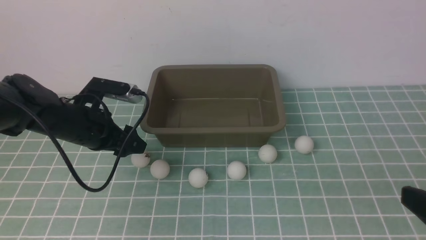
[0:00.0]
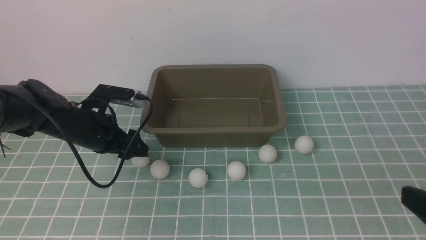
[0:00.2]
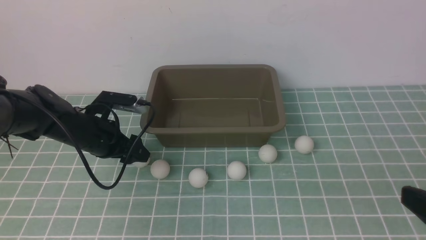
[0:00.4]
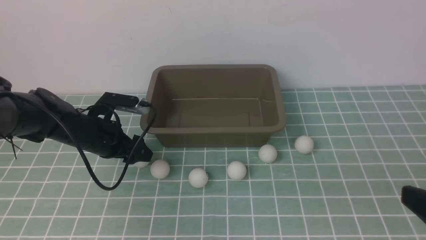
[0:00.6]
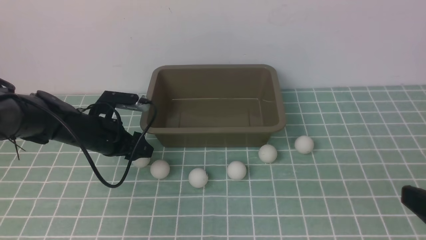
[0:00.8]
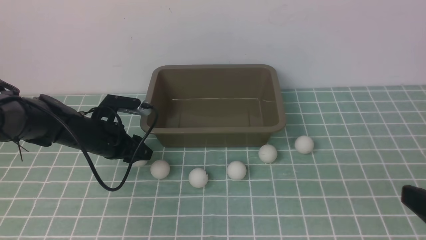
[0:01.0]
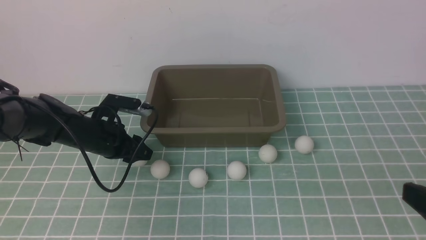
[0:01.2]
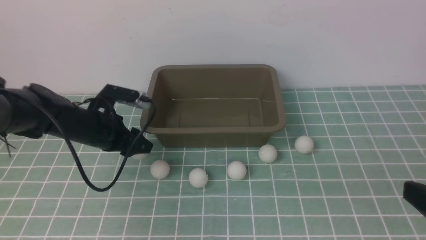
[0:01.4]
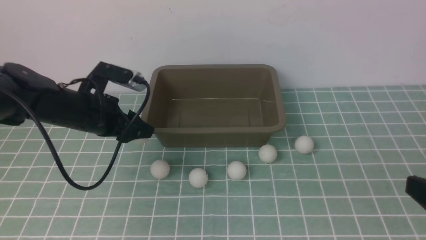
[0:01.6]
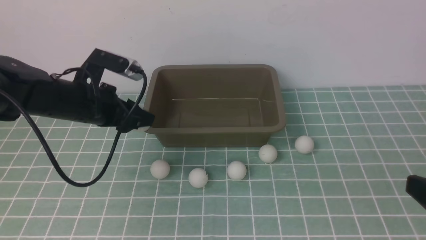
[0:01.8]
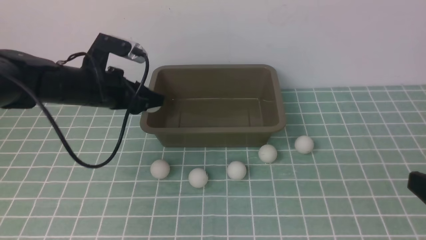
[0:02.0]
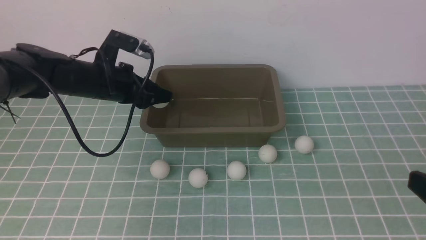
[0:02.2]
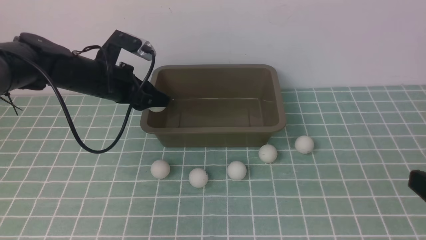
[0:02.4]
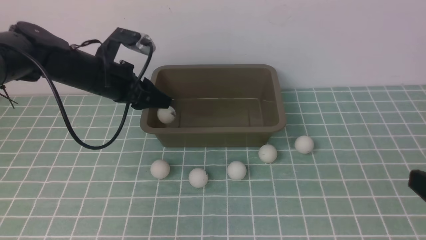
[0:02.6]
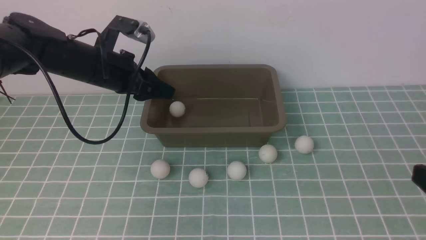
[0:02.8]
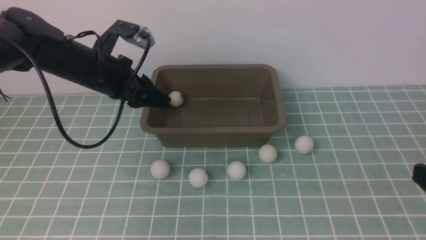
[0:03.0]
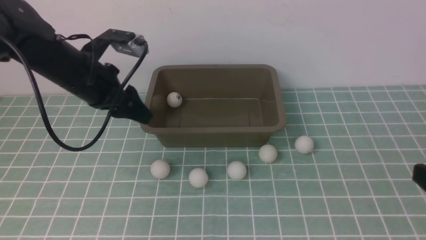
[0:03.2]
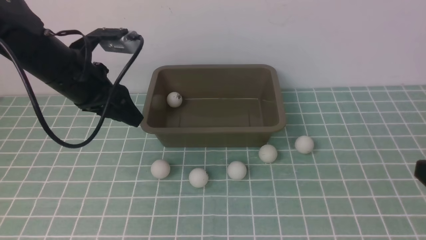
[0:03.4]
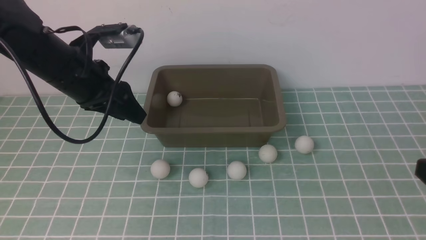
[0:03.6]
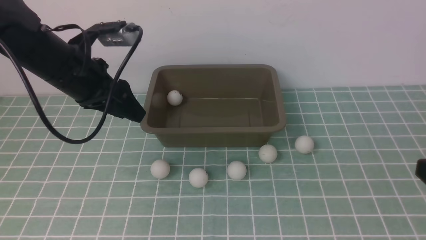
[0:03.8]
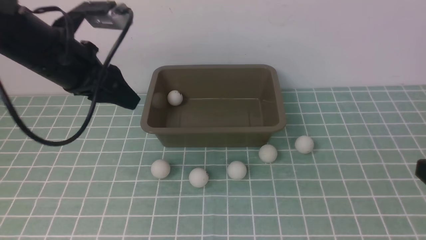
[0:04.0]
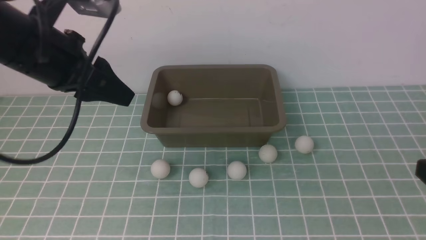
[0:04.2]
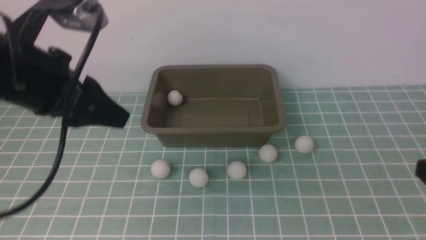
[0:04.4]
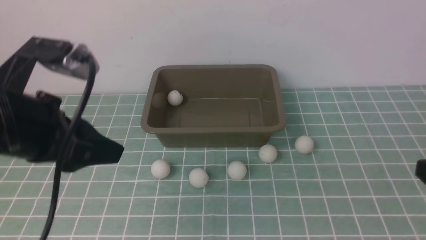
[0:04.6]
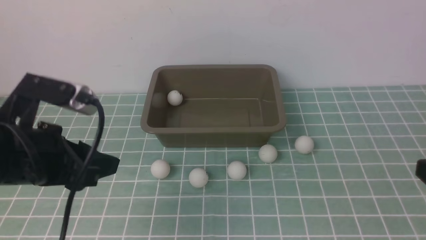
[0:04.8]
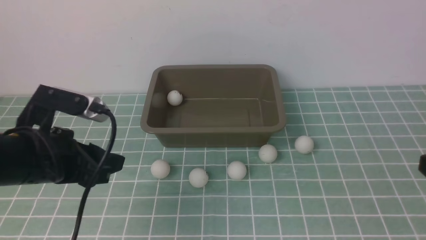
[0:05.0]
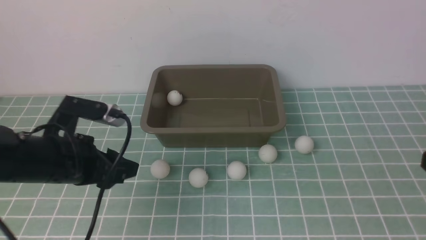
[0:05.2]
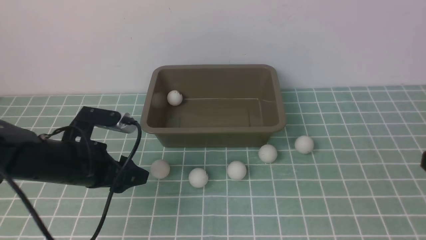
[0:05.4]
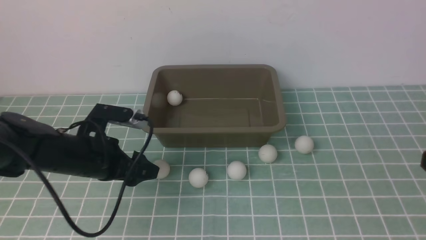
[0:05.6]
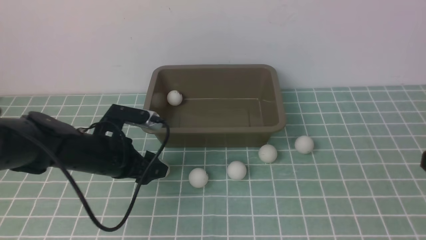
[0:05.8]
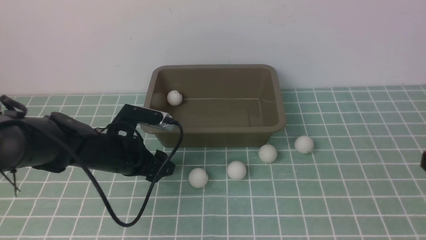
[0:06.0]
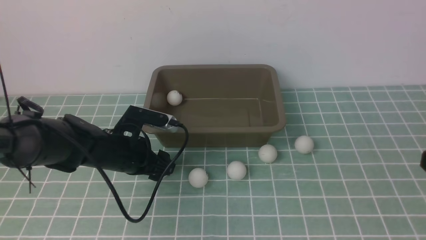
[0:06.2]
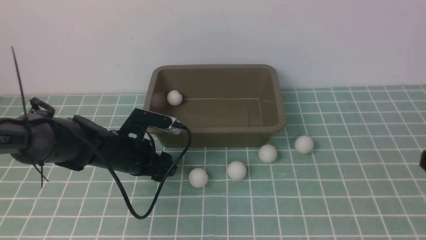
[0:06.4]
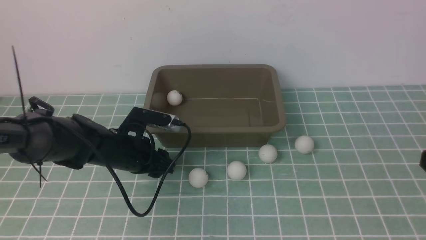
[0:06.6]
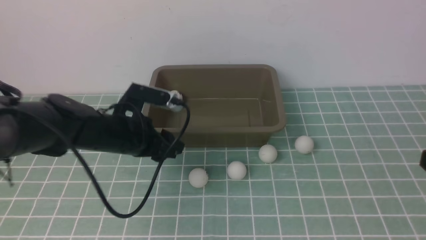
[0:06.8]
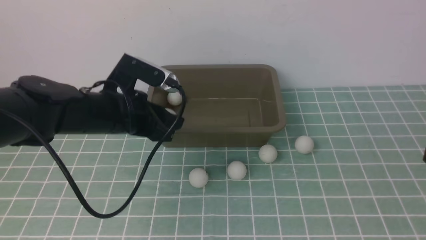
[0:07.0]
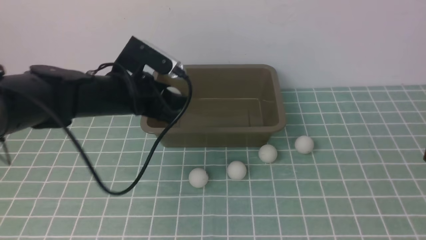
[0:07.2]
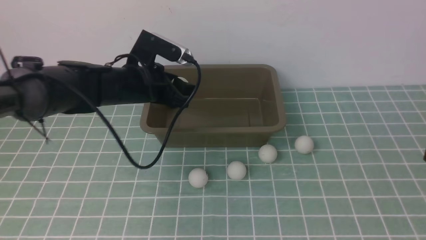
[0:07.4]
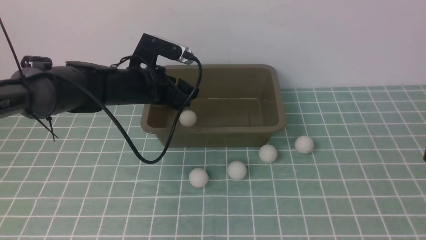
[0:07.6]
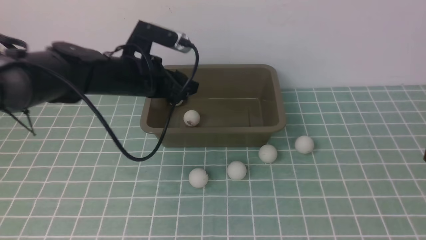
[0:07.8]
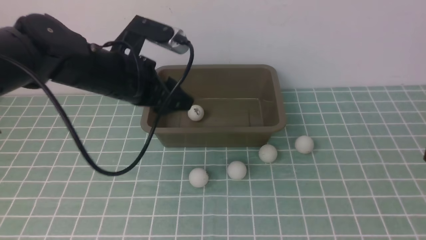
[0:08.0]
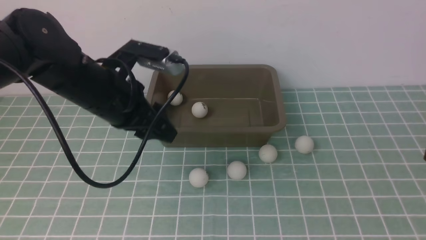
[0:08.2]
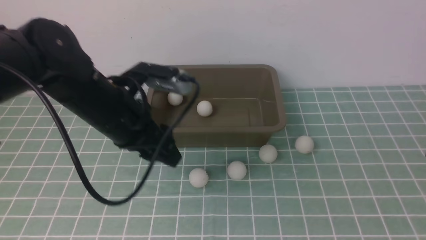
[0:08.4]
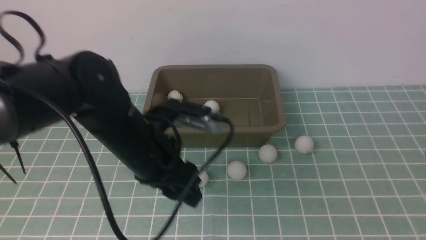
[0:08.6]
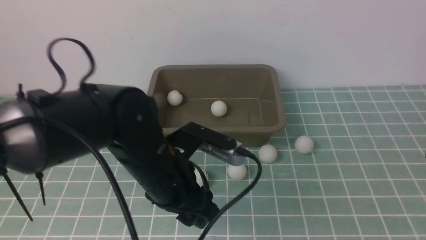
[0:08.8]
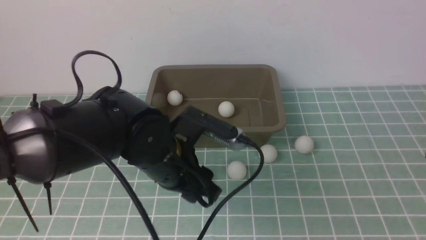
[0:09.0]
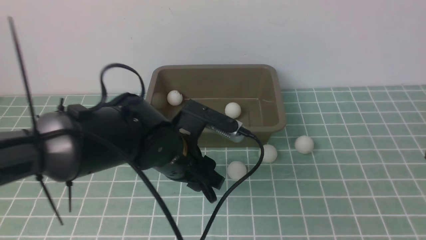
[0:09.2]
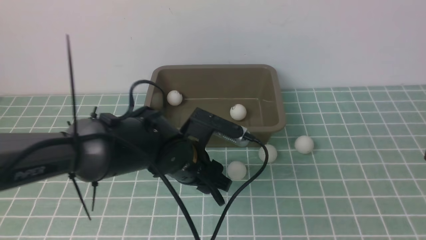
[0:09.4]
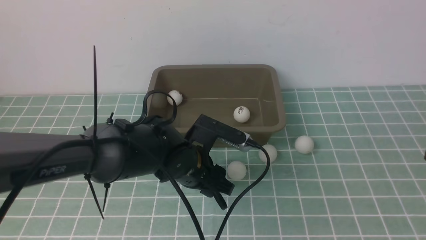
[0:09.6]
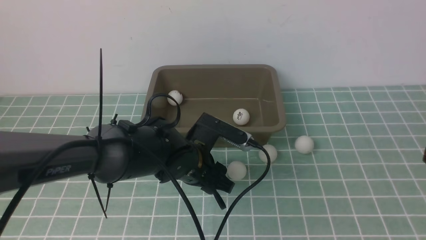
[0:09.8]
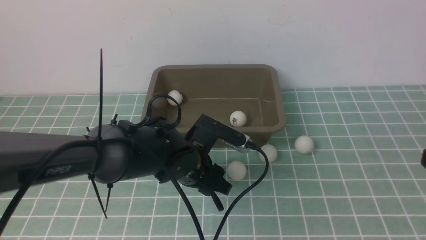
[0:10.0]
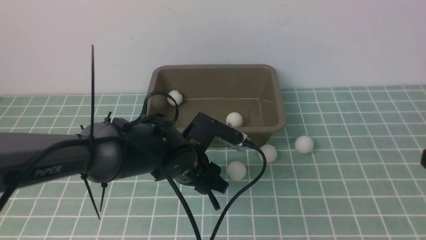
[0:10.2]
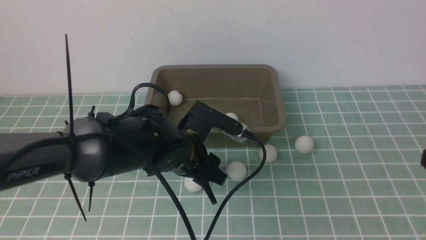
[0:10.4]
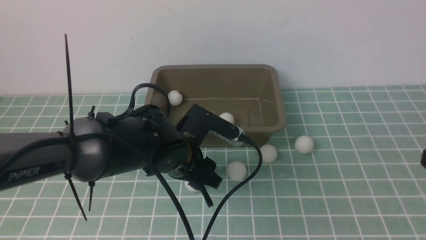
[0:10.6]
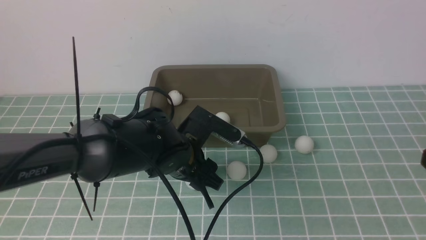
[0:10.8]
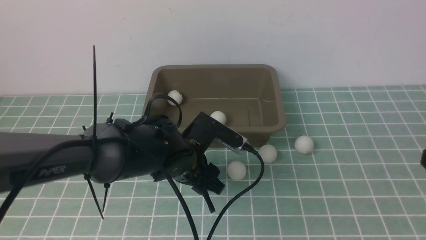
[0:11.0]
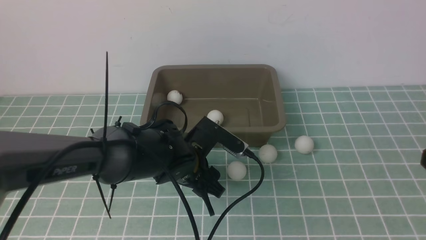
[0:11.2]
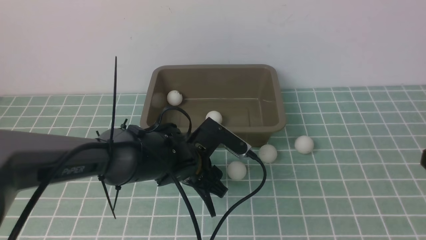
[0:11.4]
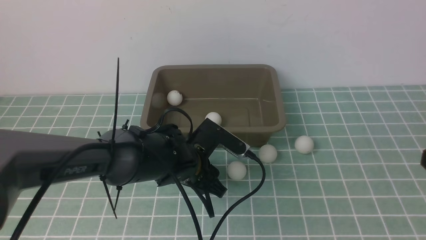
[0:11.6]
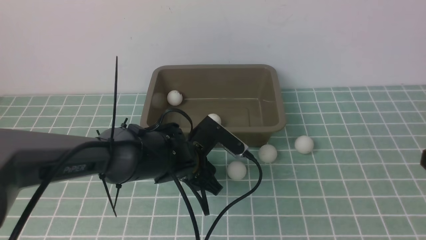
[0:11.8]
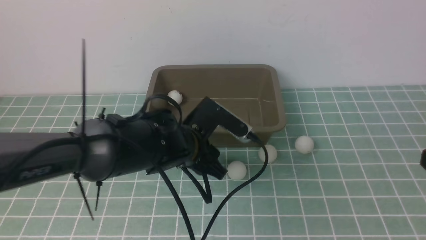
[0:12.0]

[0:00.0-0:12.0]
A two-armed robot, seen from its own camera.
Step, 0:01.6 to 0:02.6: use the left arm to put the table tennis ball into the box.
Step, 0:02.8 to 0:06.8: use the left arm to clamp the table tennis ball closest to it.
Step, 0:07.0 to 0:07.8: use the left arm to put the table tennis ball into the box.
0:00.0 to 0:01.6: The left gripper goes roughly 5 cm upward, and closes its fingers.
0:01.6 to 0:03.0: The left gripper moves about 5 cm.
0:03.0 to 0:04.4: The left gripper travels backward and upward by approximately 15 cm.
0:04.4 to 0:06.0: The left gripper shifts some 20 cm downward, and opens.
0:06.0 to 0:07.6: The left gripper shifts some 10 cm upward and forward, and closes and opens again.
0:07.6 to 0:09.0: The left gripper goes some 15 cm backward and to the right.
0:09.0 to 0:10.4: The left gripper ends up about 5 cm from where it was.
0:10.4 to 0:12.0: The left gripper closes up.

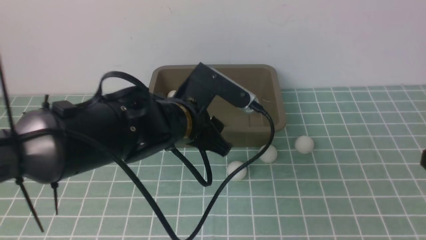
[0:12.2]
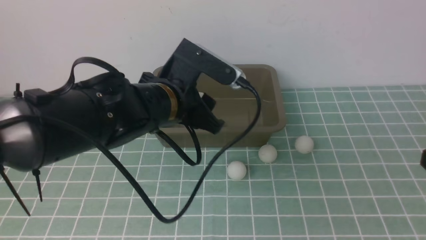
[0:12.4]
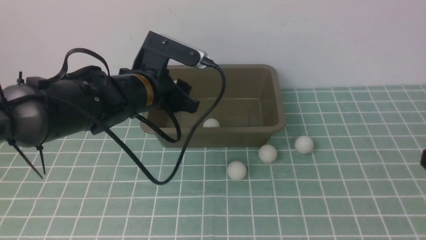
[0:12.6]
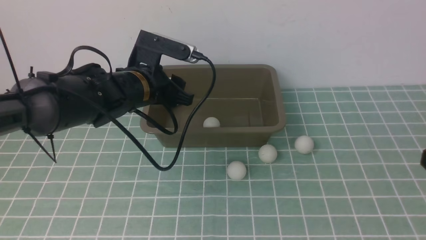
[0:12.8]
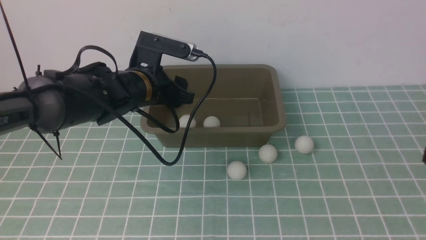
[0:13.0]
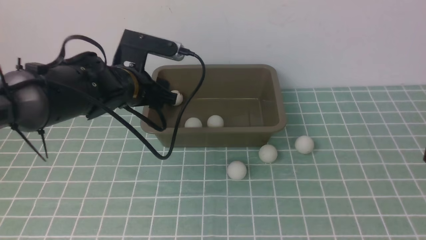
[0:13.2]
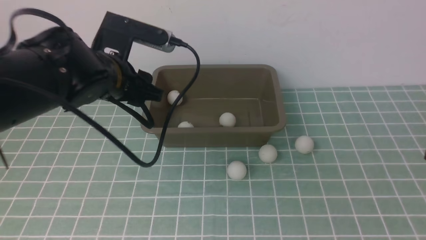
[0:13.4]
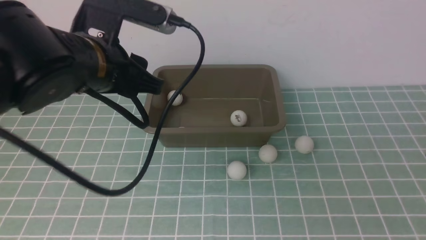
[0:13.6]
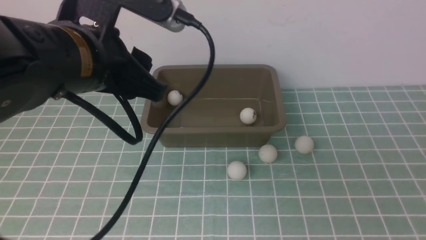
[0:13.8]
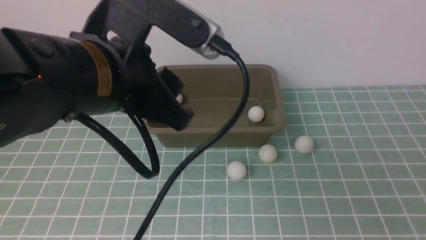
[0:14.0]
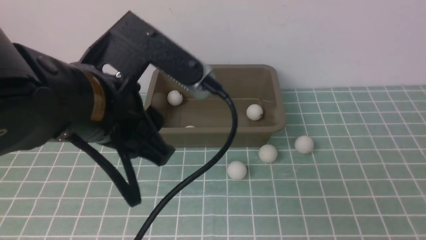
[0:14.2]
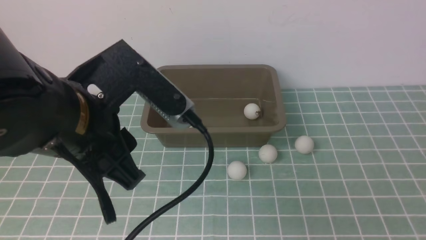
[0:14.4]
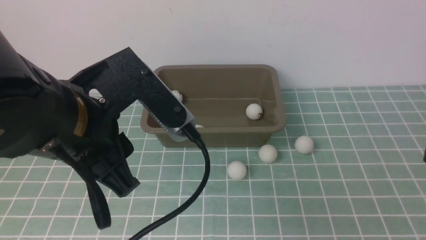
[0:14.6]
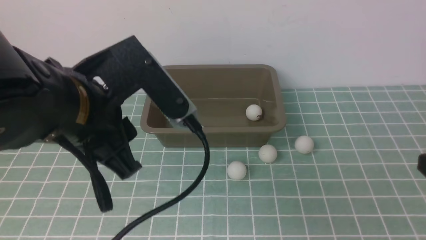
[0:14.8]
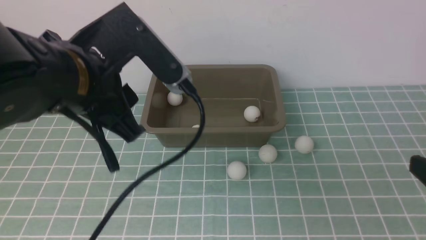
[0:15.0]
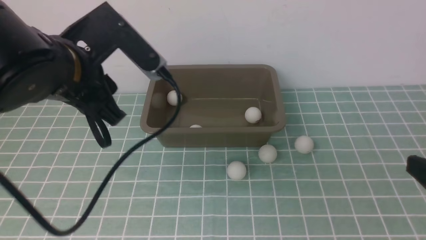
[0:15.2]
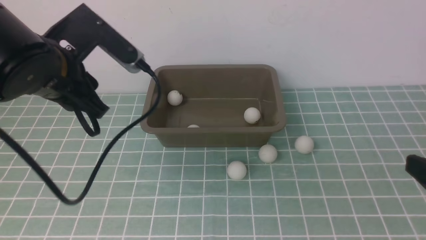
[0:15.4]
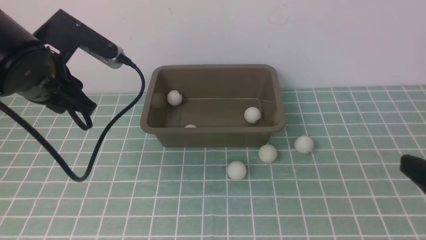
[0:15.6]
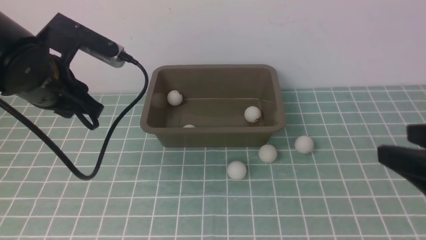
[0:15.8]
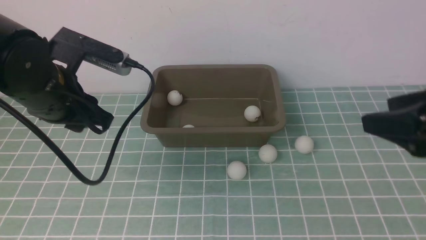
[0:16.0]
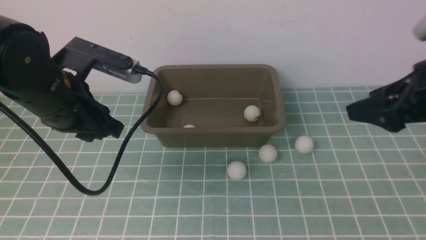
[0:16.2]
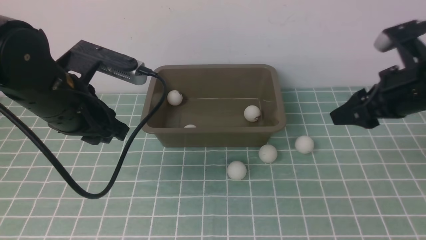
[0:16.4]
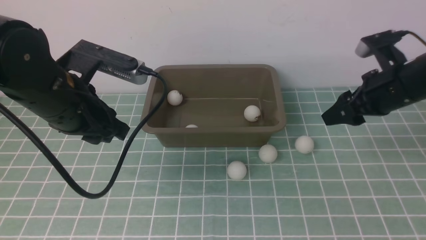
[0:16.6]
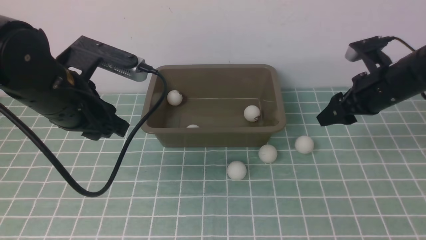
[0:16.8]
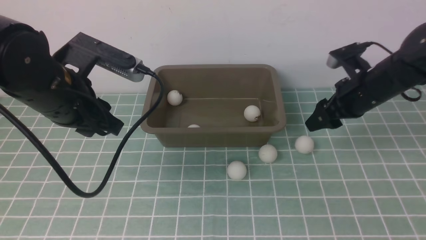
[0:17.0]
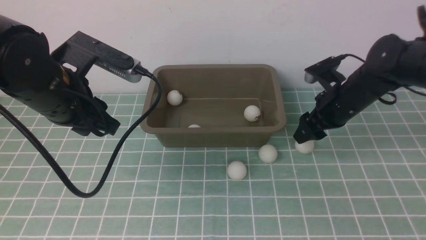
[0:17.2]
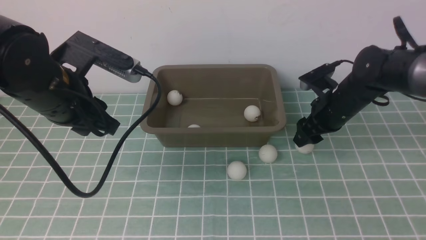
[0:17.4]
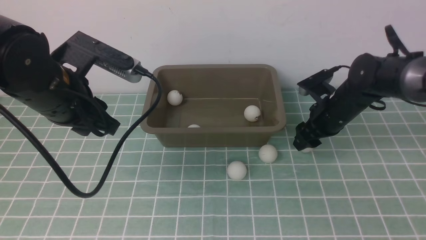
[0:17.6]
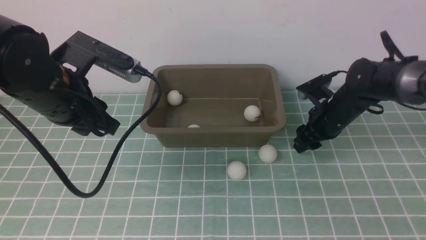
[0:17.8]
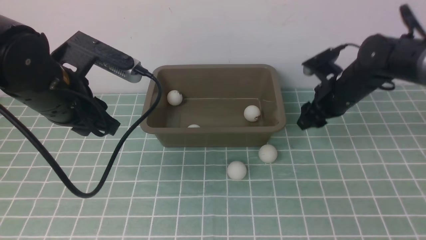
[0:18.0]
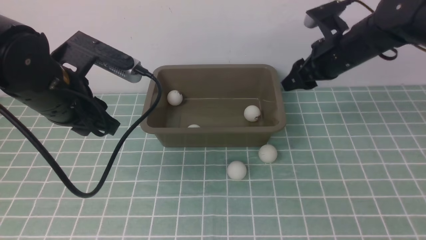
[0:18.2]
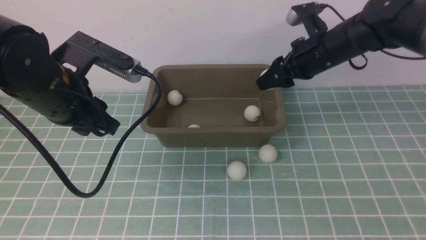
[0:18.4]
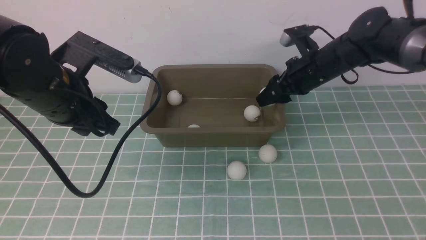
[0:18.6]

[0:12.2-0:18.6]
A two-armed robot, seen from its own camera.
Step, 0:12.2 to 0:13.0: use the left arm to put the table tennis ball into the box.
Step, 0:13.4 to 0:18.0: use the right arm to clamp the table tennis ball closest to it.
0:12.2 to 0:13.8: The left gripper heads upward and backward, covering about 15 cm, and opens, then closes again.
0:13.8 to 0:15.4: The left gripper goes some 15 cm to the left, forward and downward, while the right gripper travels forward by approximately 5 cm.
0:15.4 to 0:17.0: The right gripper travels forward and downward by roughly 30 cm.
0:17.0 to 0:18.6: The right gripper moves to the left, some 5 cm, and reaches roughly 5 cm upward, then returns.
